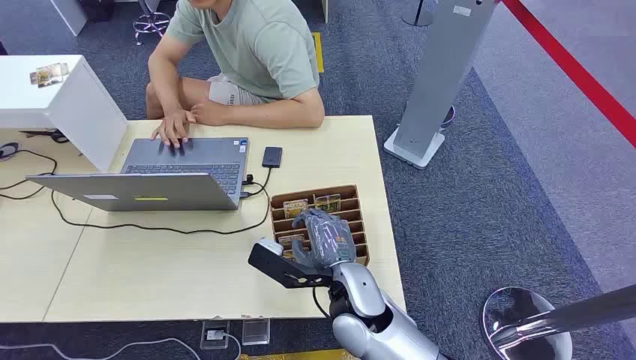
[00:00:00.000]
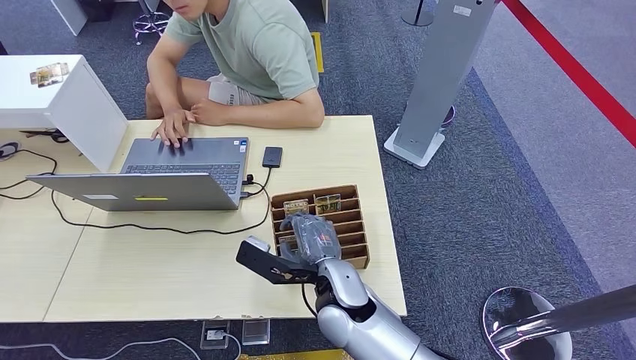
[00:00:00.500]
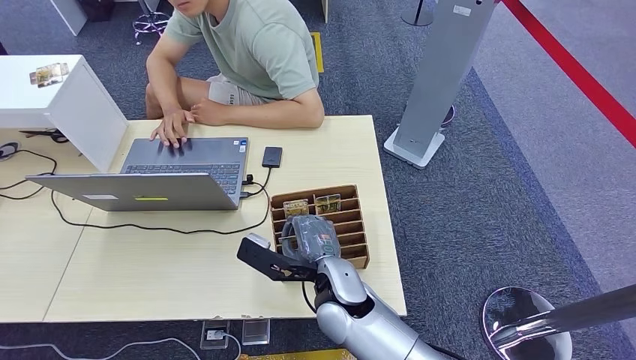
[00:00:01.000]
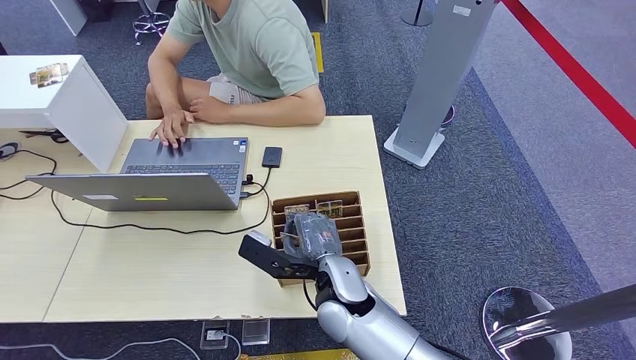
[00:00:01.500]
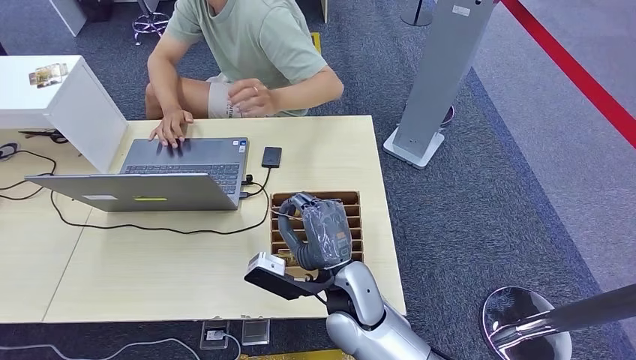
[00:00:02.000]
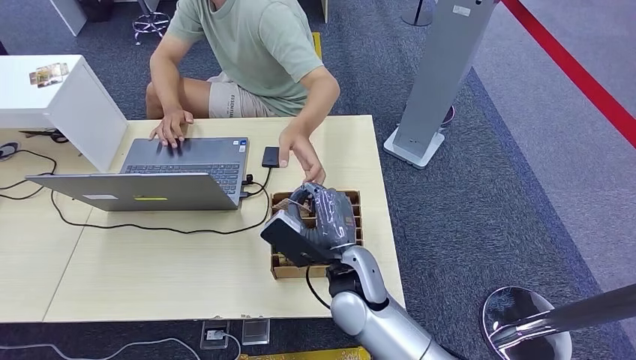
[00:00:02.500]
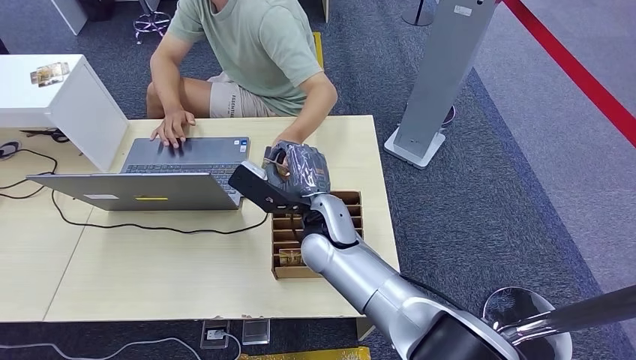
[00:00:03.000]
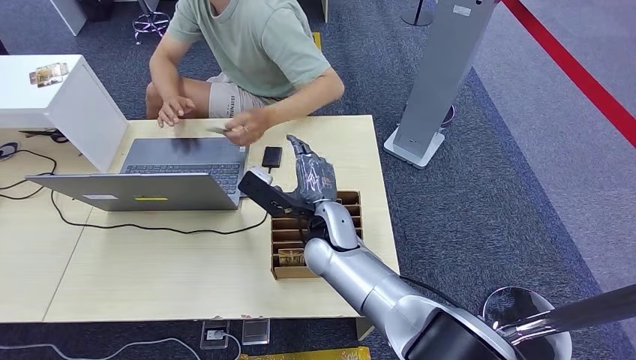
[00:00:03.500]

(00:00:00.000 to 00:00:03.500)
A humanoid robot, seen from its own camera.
Step, 00:00:00.000 - 00:00:02.000: Pick up the key card from the card box.
Step, 00:00:02.500 - 00:00:03.500: Hand the key card to the target.
00:00:02.000 - 00:00:03.500: The right hand is displaced forward by about 10 cm.
